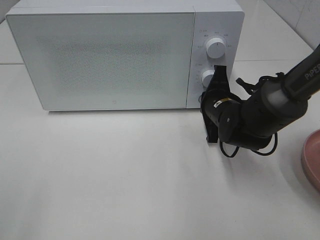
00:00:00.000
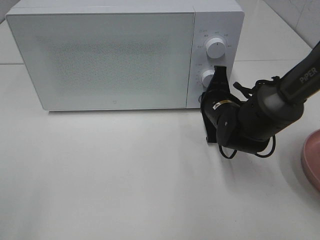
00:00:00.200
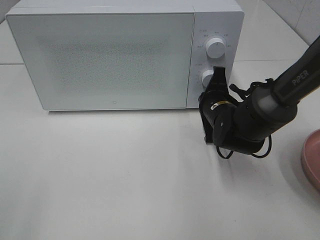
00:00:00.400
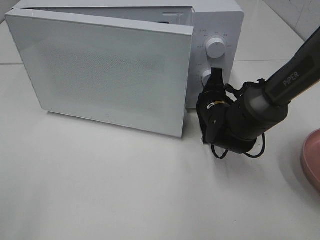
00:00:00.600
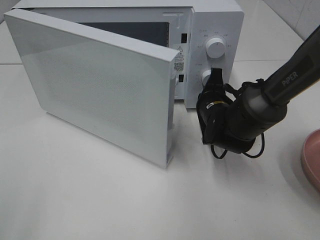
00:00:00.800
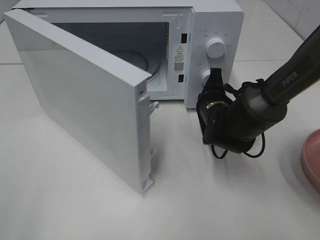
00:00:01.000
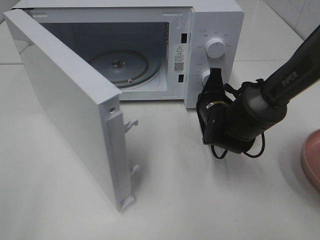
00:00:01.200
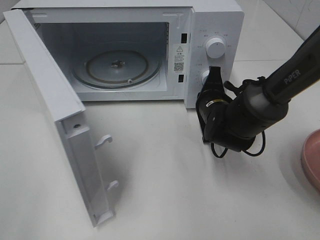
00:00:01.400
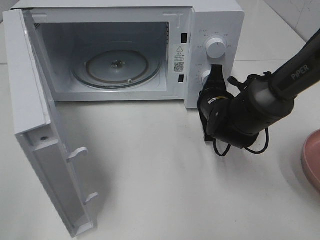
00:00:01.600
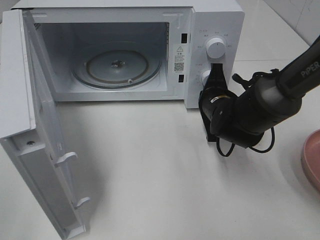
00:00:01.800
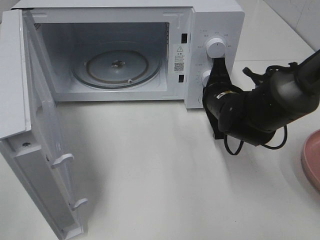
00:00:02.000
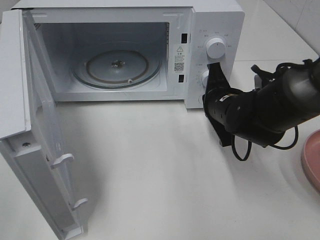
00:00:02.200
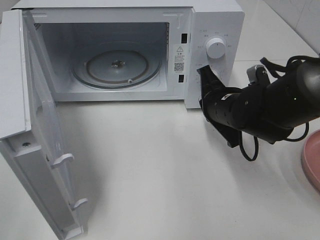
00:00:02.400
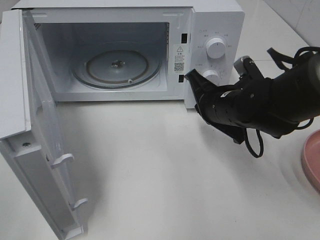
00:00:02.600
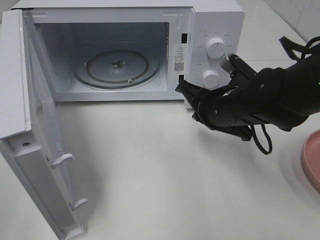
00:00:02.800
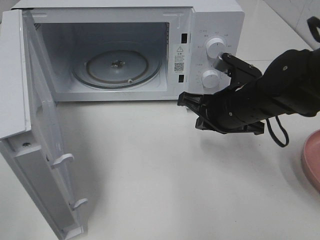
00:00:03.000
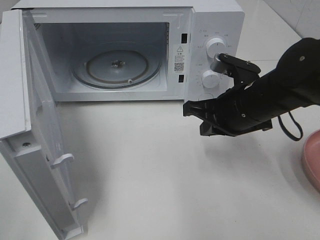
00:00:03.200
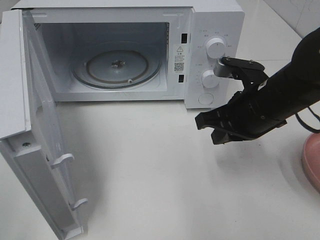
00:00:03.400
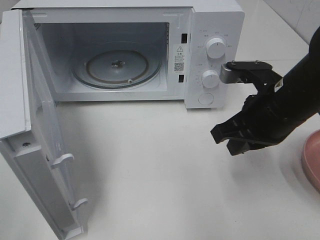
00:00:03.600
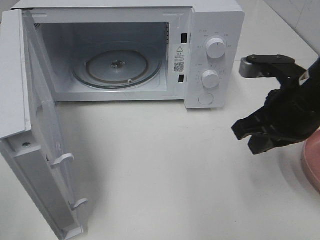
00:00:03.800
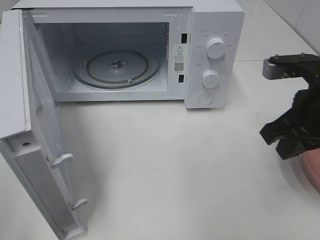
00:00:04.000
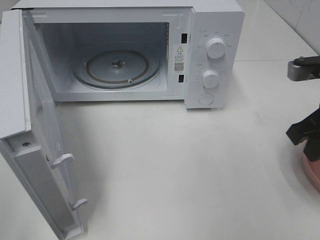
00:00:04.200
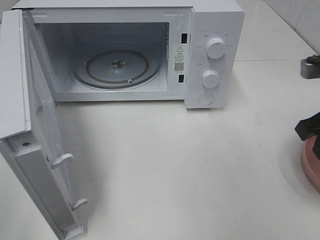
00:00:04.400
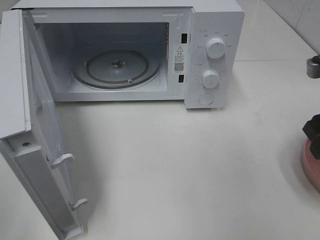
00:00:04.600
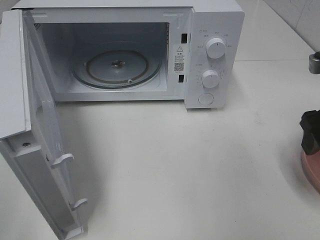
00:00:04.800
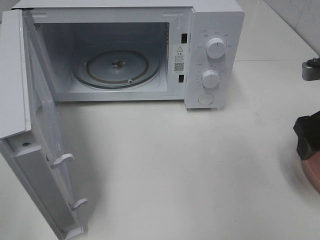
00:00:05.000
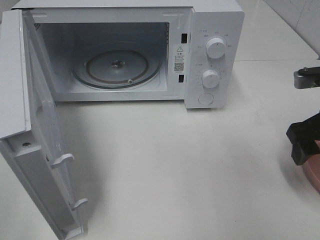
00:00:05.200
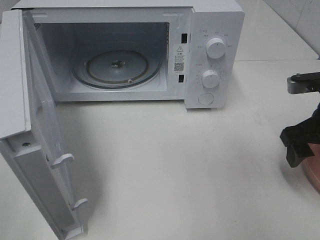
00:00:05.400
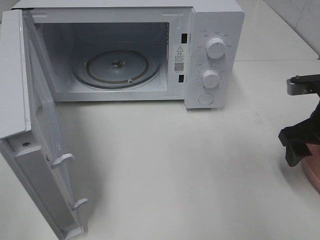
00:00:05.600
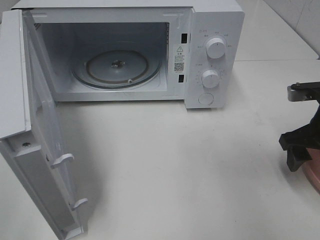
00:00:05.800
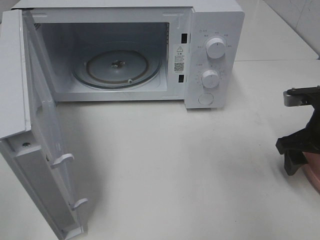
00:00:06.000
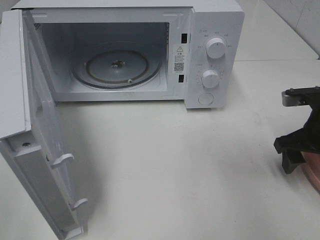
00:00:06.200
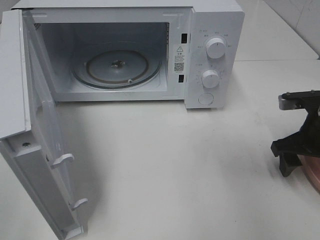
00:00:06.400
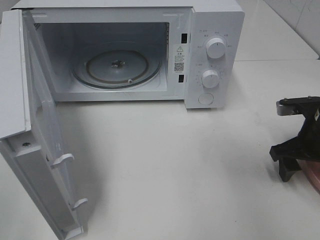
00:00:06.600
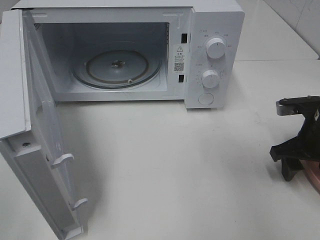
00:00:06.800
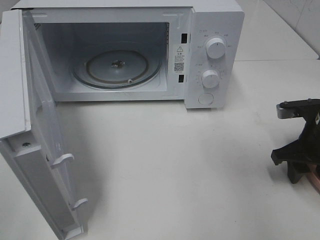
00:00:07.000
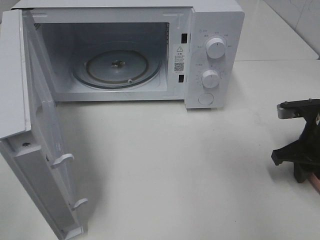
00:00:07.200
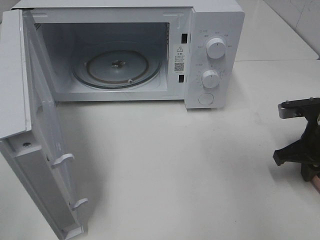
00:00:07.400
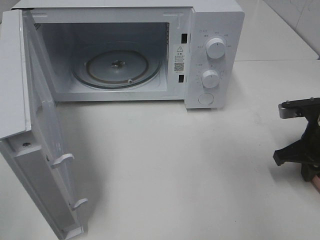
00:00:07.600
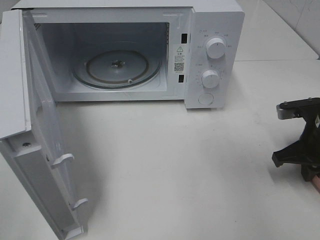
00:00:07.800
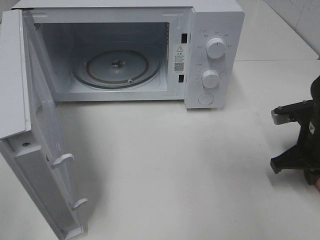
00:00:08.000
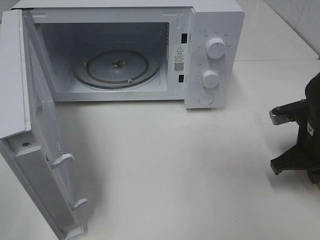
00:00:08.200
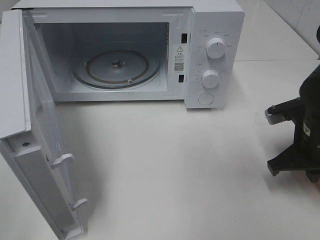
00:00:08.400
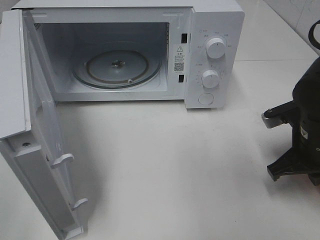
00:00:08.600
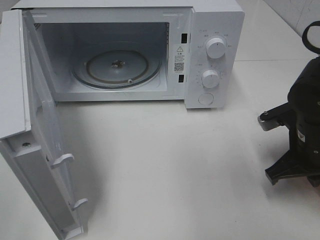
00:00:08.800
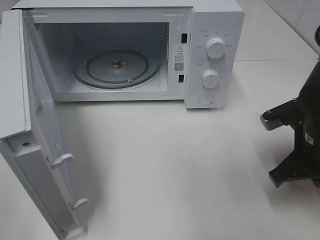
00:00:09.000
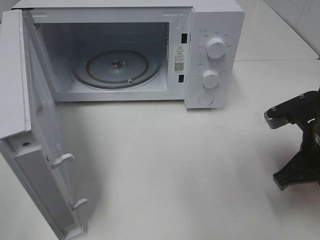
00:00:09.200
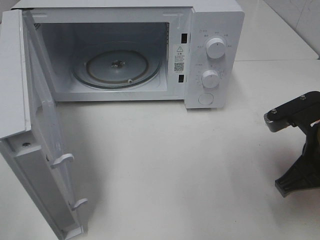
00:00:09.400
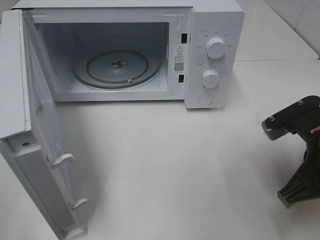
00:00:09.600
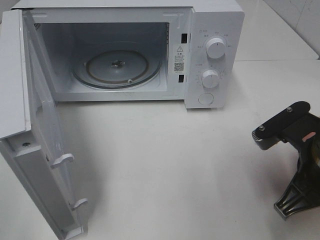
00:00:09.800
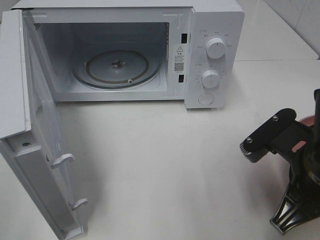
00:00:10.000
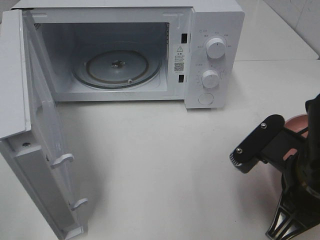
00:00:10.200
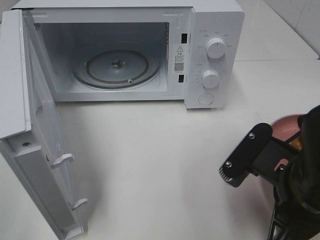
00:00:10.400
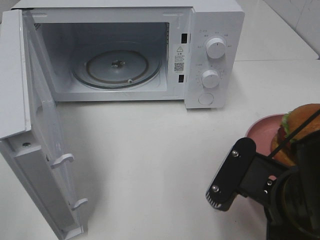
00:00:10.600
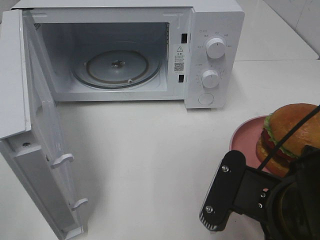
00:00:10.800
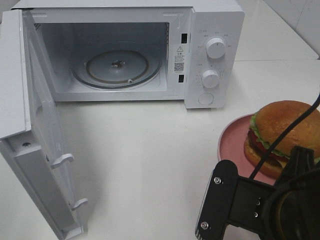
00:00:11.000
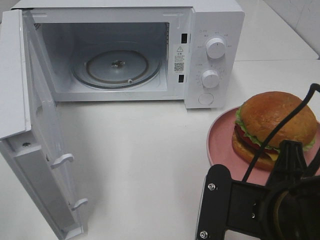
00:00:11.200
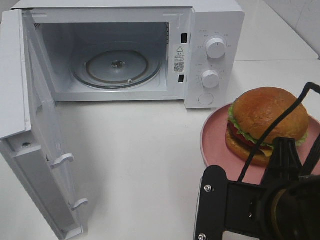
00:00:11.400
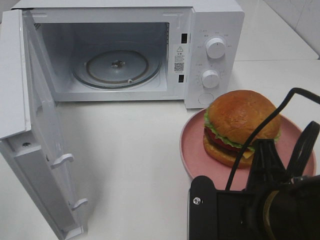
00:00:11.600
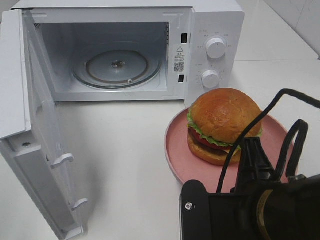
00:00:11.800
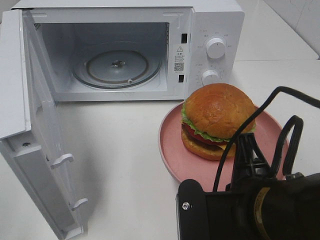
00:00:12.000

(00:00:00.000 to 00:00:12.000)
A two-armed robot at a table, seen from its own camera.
Task of the whole recording: Heat the burger.
Step, 00:00:02.000 - 00:00:07.600: Right hand: grab the plate with the hamburger.
00:00:01.600 - 00:00:03.000: The right gripper is displaced upward and backward by roughly 10 cm.
00:00:03.000 - 00:00:04.400: The right gripper is displaced to the right, upward and backward by about 15 cm, and opens.
00:00:04.400 - 00:00:06.000: The right gripper goes about 10 cm downward, and opens its fingers.
00:00:06.000 - 00:00:07.600: The right gripper closes up.
00:00:07.600 - 00:00:09.000: The right gripper is displaced to the left by approximately 5 cm.
00:00:09.000 - 00:00:10.400: The right gripper shifts about 10 cm backward and to the left.
00:00:10.400 - 00:00:12.000: The right gripper ends up some 5 cm from where it was.

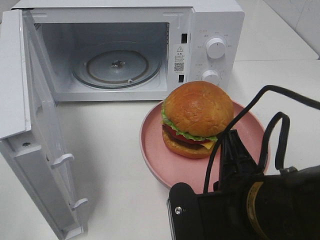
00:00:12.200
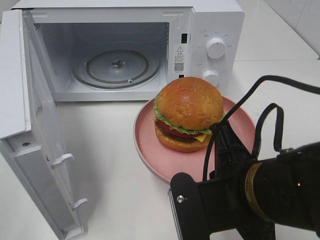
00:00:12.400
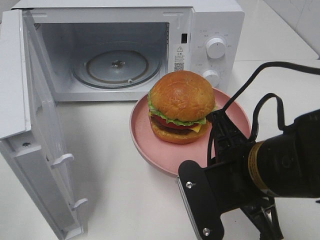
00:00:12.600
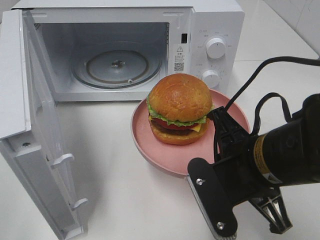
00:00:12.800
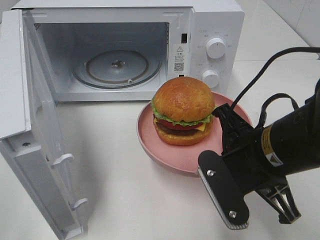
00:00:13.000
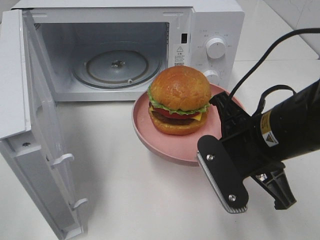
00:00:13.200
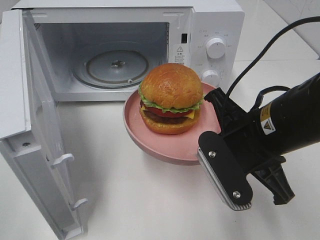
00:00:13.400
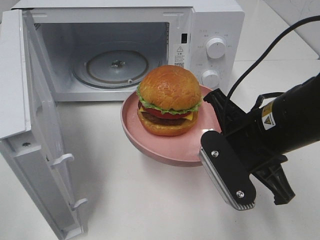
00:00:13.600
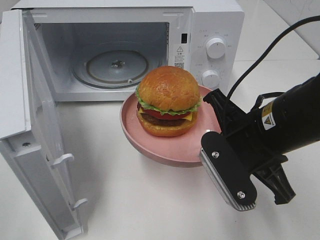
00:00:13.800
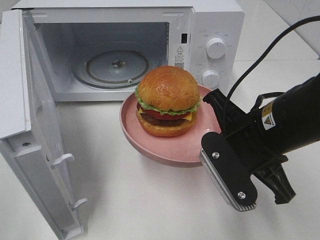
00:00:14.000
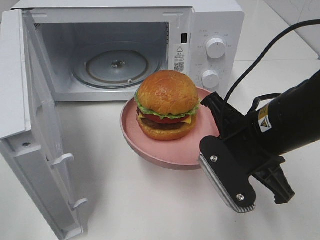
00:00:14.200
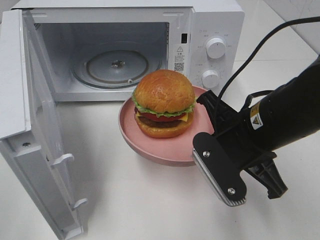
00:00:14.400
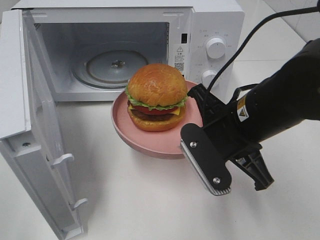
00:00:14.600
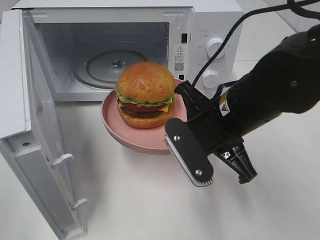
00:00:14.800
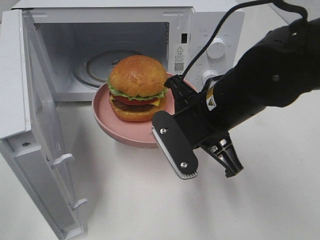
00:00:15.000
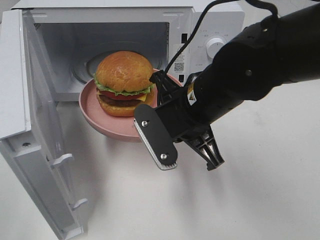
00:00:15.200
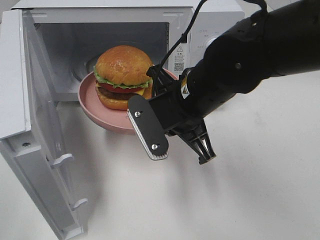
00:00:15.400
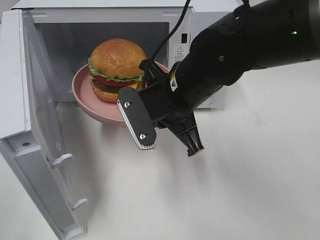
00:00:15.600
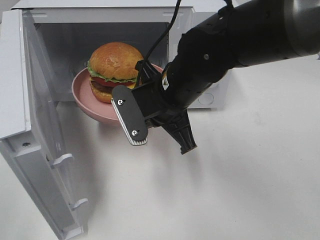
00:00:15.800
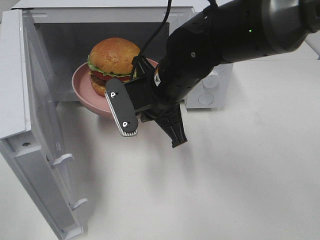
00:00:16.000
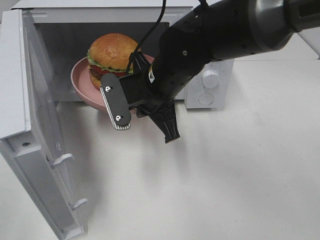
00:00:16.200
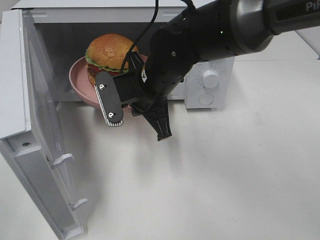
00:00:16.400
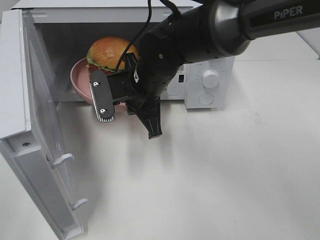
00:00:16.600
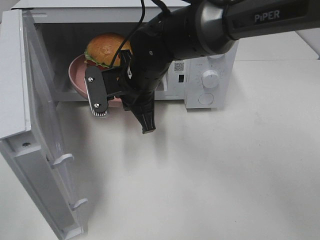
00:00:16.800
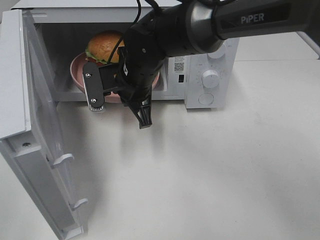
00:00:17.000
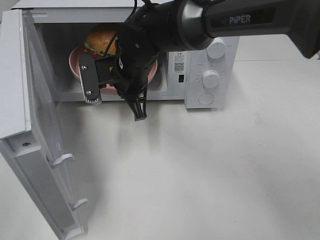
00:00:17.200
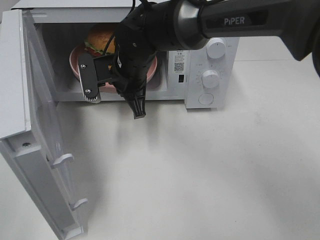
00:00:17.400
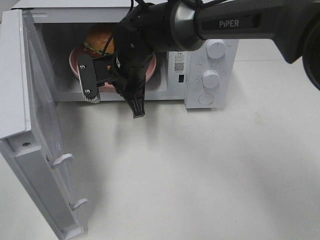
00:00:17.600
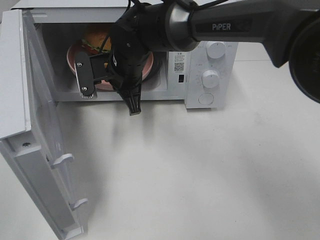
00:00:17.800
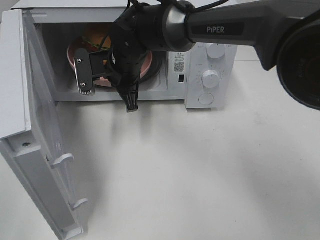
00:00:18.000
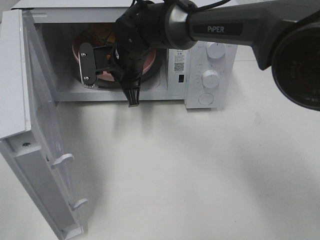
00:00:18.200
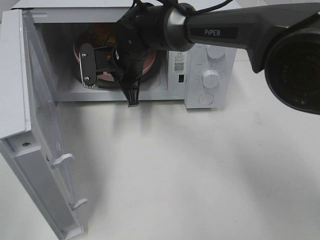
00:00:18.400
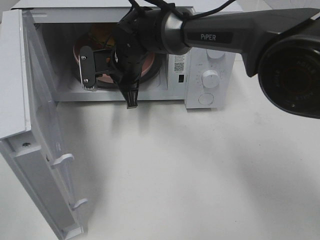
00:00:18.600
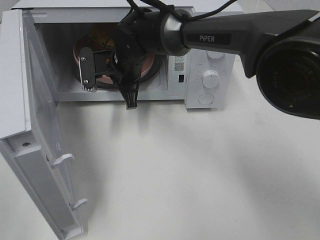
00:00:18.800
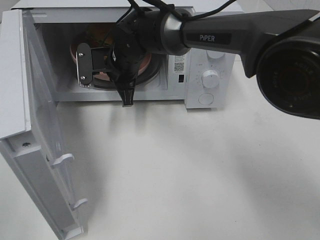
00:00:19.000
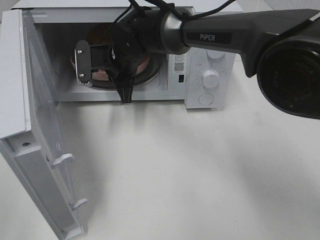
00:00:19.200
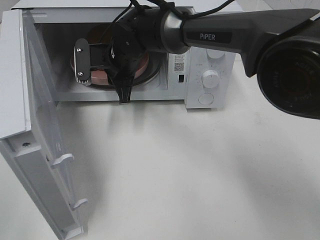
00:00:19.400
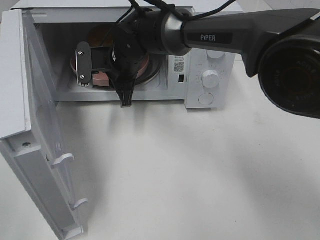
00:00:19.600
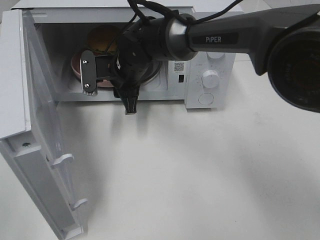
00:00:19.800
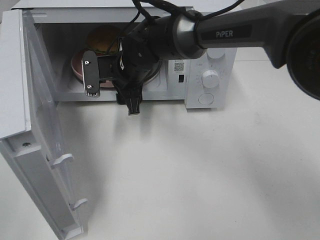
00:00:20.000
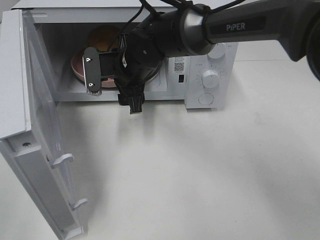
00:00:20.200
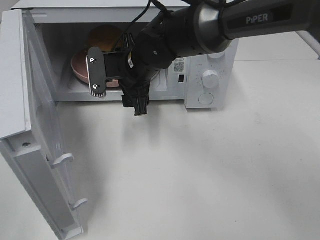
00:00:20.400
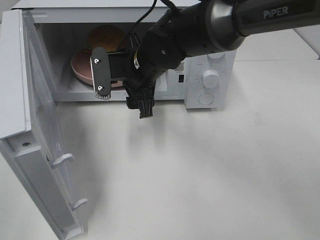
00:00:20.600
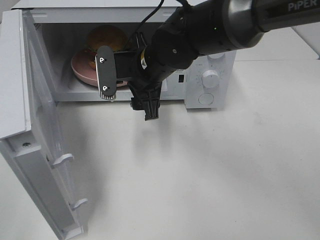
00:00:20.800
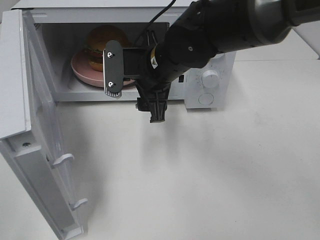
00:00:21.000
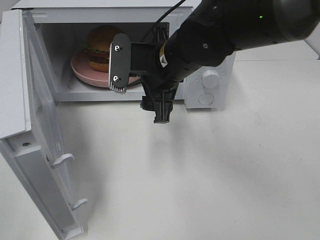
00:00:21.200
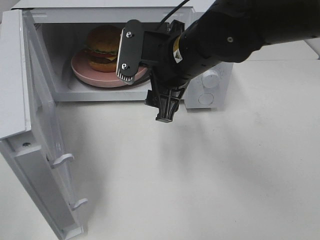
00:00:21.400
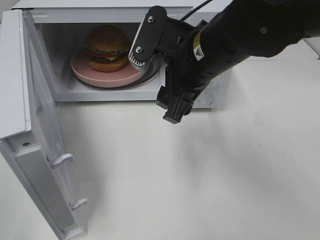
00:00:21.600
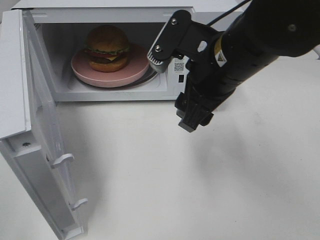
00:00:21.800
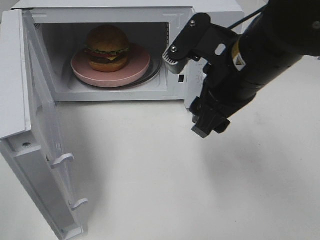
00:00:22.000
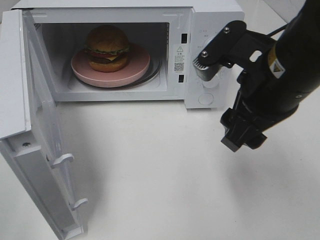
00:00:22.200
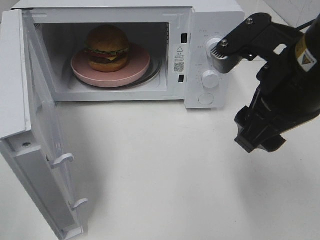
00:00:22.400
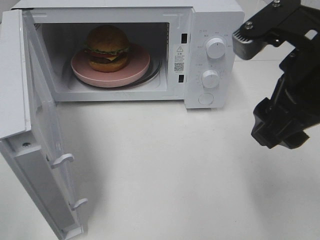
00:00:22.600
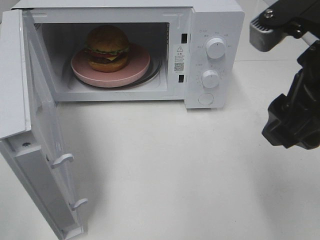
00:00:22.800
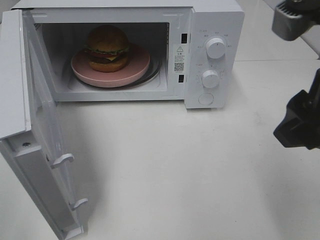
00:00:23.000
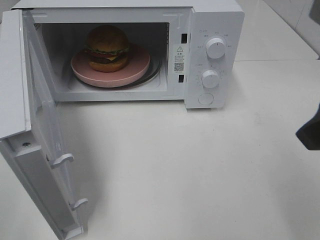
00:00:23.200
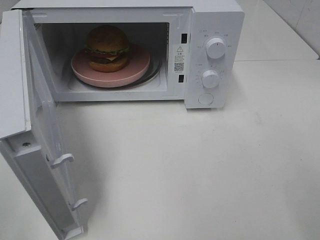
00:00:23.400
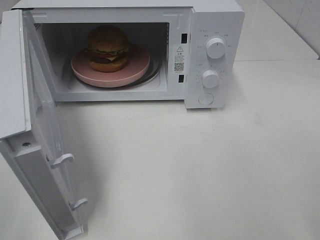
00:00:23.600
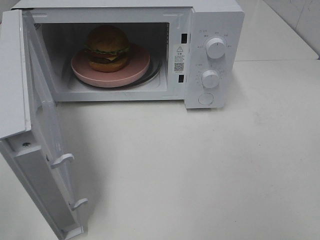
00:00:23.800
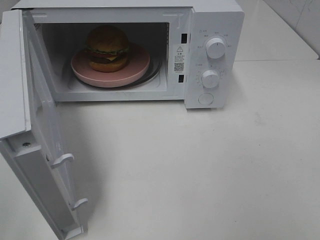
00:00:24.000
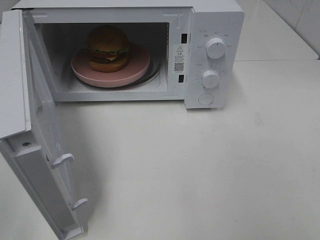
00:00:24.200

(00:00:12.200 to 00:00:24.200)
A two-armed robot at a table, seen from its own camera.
Task of the whole recording: Heat the burger.
Step, 00:00:12.200 - 00:00:19.600: Right hand: place the plate in the microwave.
00:00:12.200 - 00:00:13.800: The right gripper heads forward, covering about 10 cm.
00:00:13.800 - 00:00:15.200: The right gripper shifts roughly 10 cm to the left and forward.
00:00:15.200 - 00:00:16.600: The right gripper shifts roughly 10 cm forward and to the left.
00:00:16.600 - 00:00:18.200: The right gripper goes approximately 10 cm forward.
00:00:18.200 - 00:00:19.800: The right gripper opens up.
00:00:19.800 - 00:00:21.200: The right gripper heads backward, to the right and upward, covering about 15 cm.
00:00:21.200 - 00:00:22.600: The right gripper travels backward, to the right and upward by approximately 20 cm.
00:00:22.600 - 00:00:24.200: The right gripper shifts roughly 20 cm backward and to the right.
